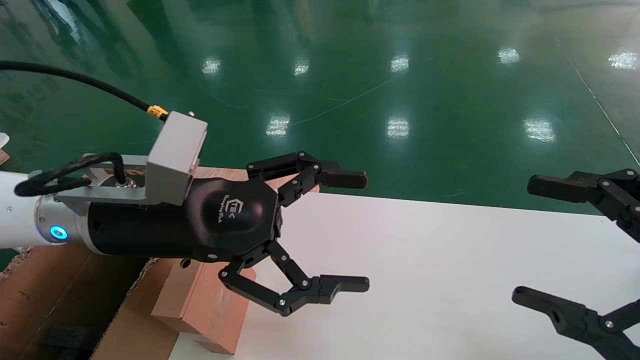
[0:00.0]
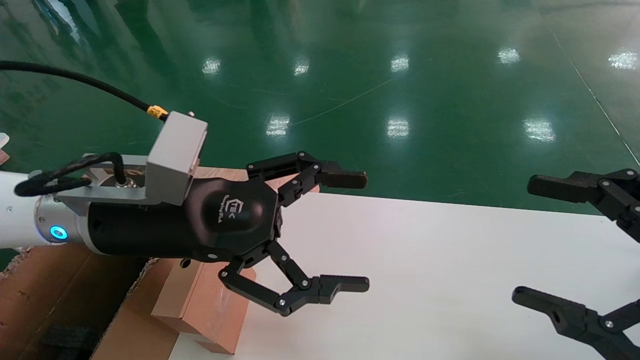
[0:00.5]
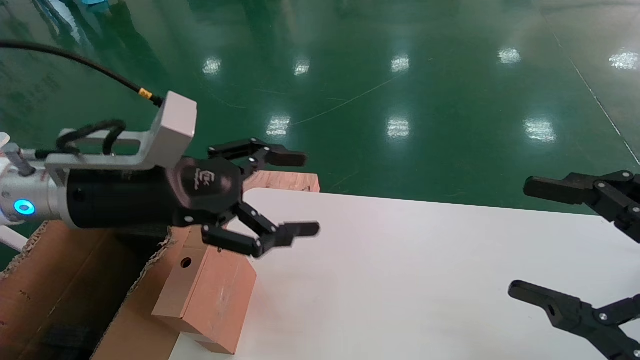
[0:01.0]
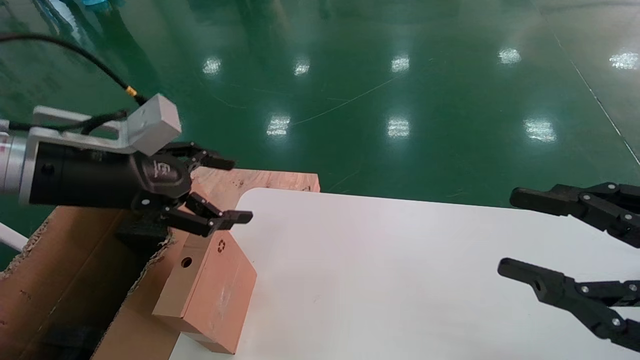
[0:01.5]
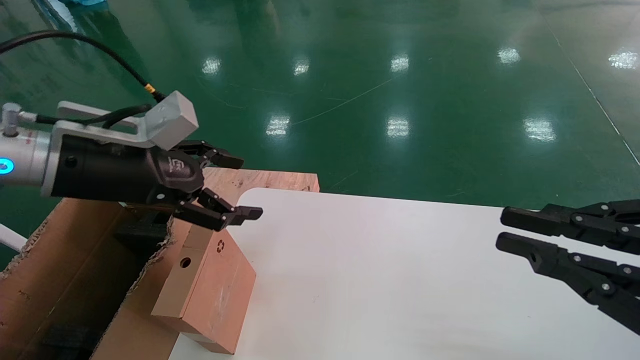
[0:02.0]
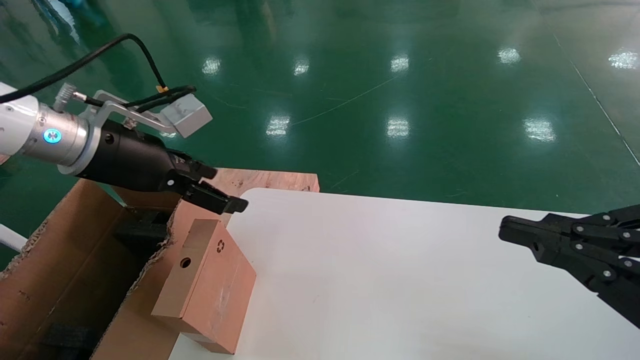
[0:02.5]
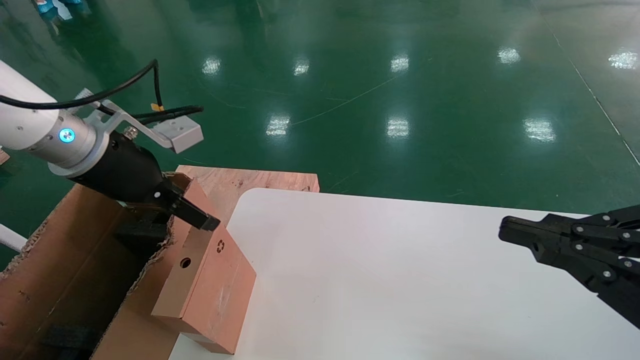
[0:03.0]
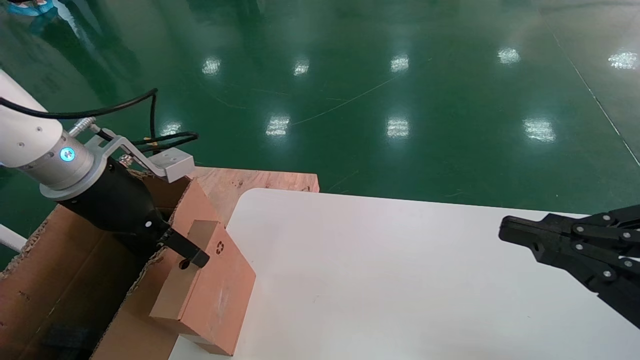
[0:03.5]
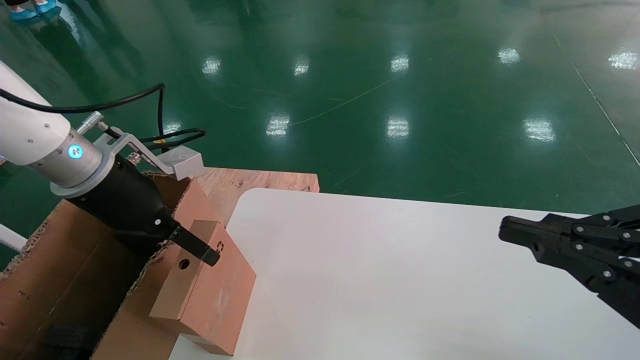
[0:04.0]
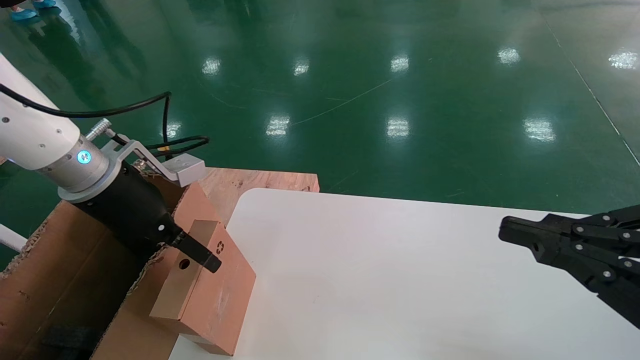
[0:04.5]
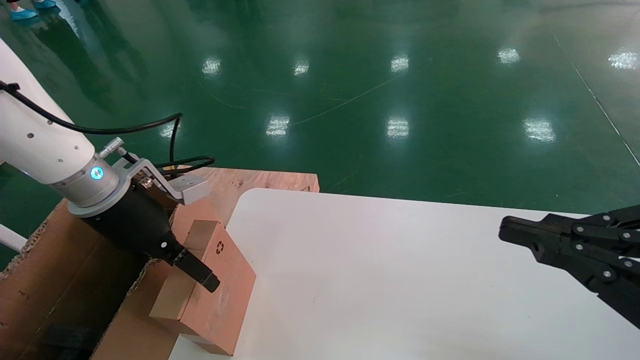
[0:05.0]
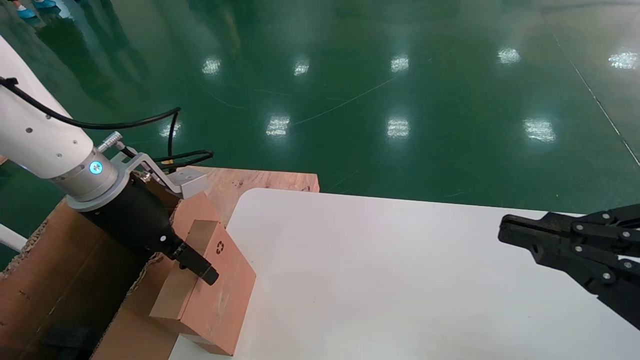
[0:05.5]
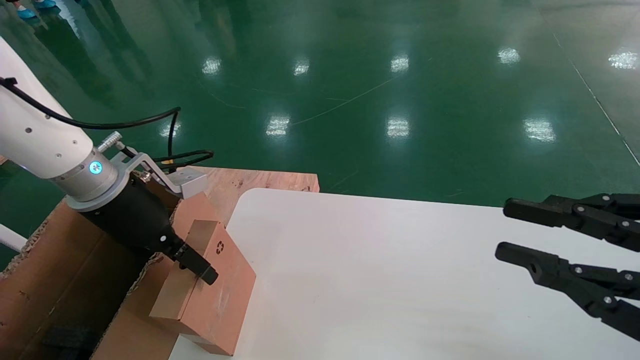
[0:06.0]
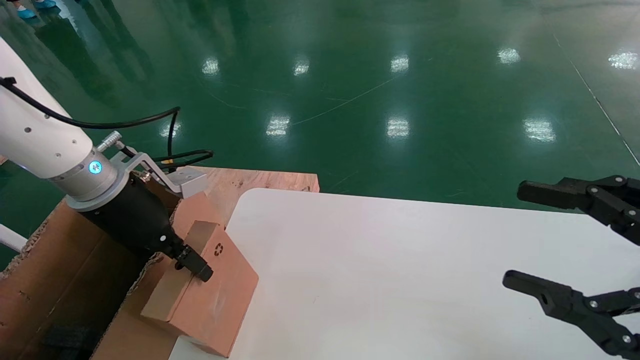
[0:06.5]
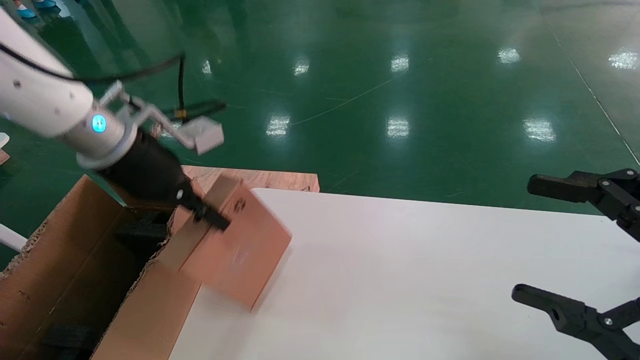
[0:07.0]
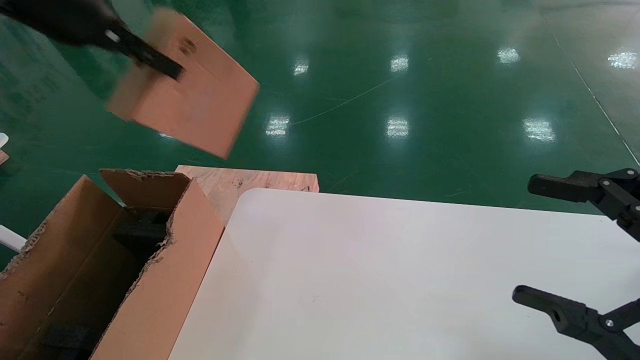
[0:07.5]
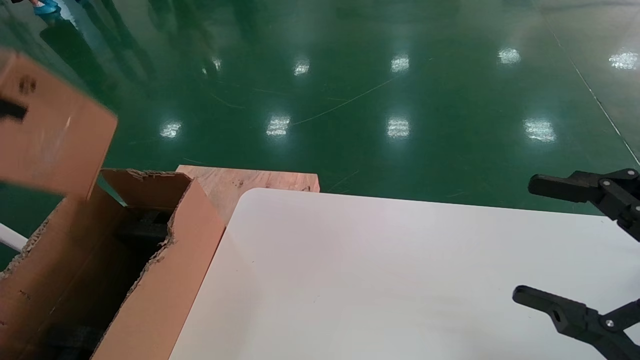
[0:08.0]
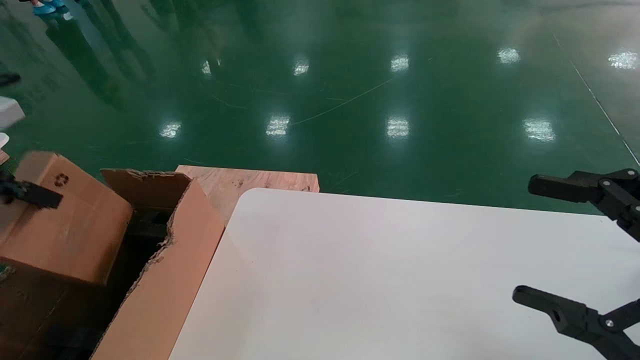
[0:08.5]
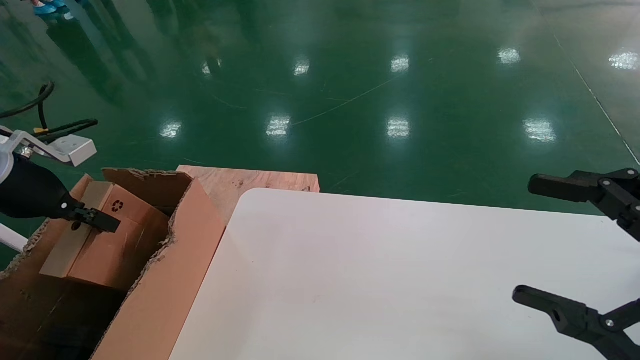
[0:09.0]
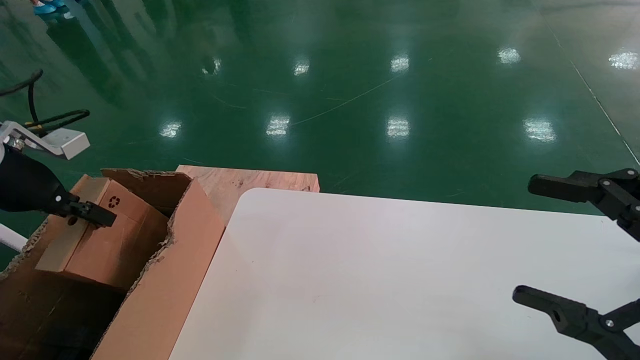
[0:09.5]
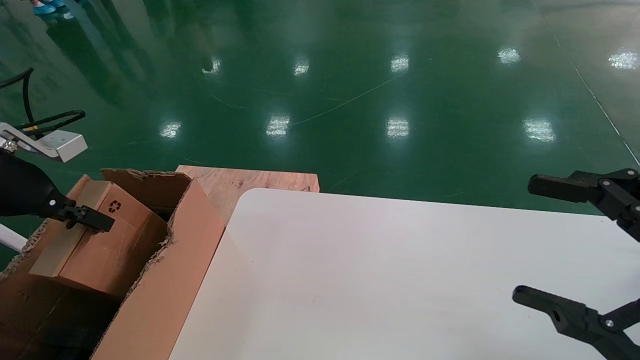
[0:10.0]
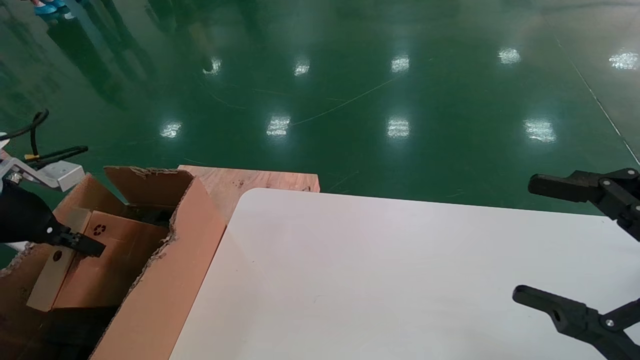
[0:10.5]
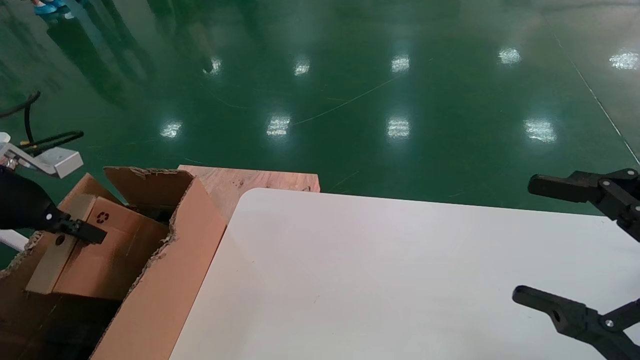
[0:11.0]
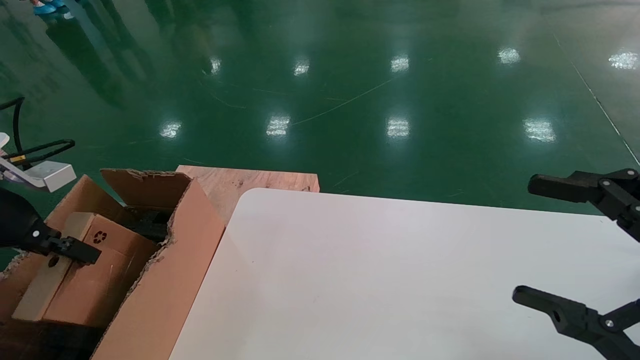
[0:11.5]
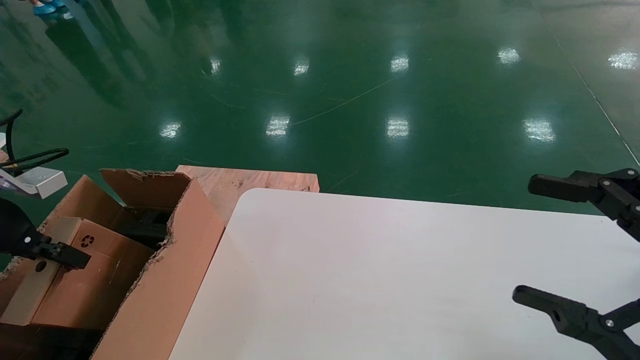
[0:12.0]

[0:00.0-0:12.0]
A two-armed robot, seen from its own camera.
Task of the whole recording: place the small box on the table into the large box on the left.
Step, 0:01.5 to 0:06.5: Pick up the mouse and the power cord paper box.
0:00.0 to 0:02.0: The left gripper moves to the left, about 10 cm. Meanwhile the right gripper closes.
0:04.0 to 0:06.0: The grippers stay close to where they were, moving slightly.
0:06.0 to 0:08.0: The right gripper opens its fingers. Meanwhile the left gripper moves upward, to the left and backward, approximately 25 cm, and closes its fingers.
0:08.0 to 0:10.0: The left gripper shifts about 15 cm downward and forward.
0:10.0 to 0:12.0: The left gripper moves some 5 cm.

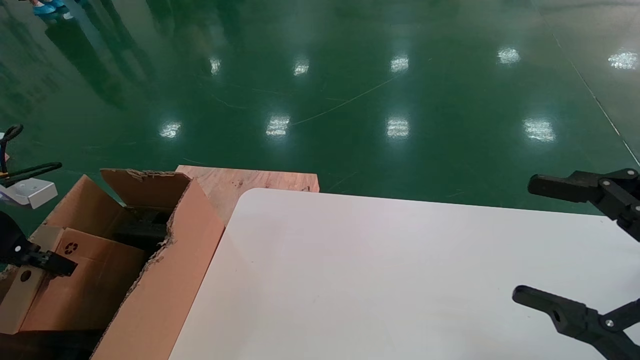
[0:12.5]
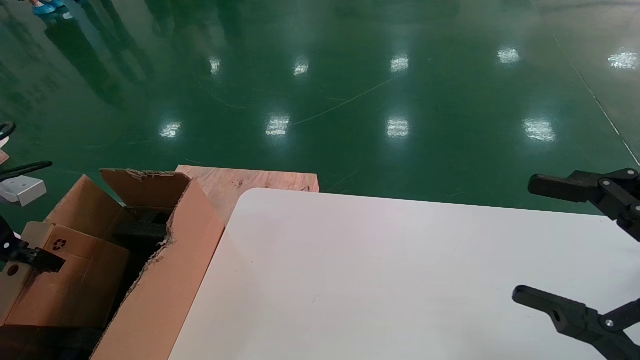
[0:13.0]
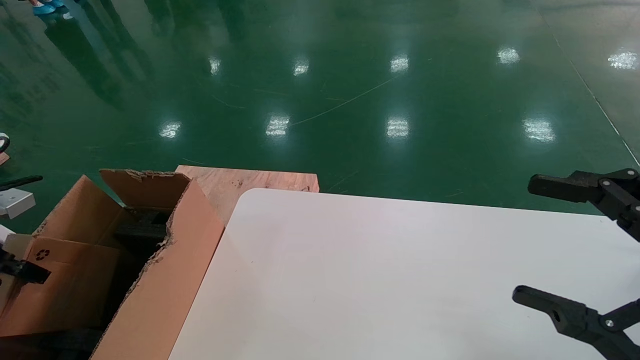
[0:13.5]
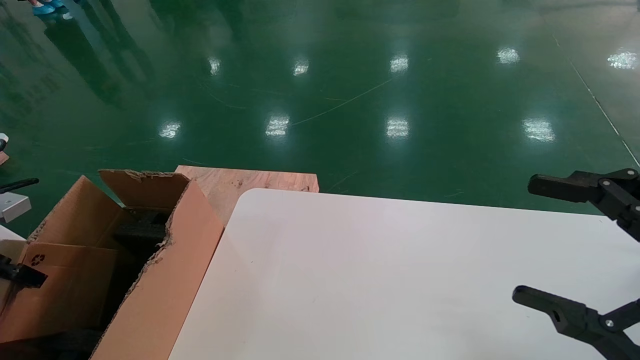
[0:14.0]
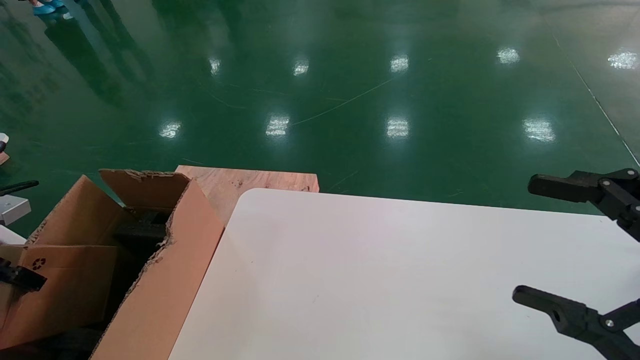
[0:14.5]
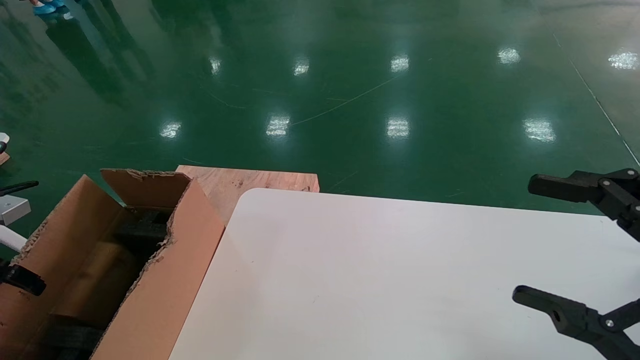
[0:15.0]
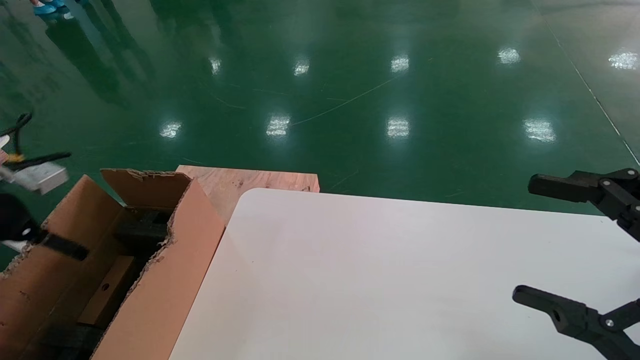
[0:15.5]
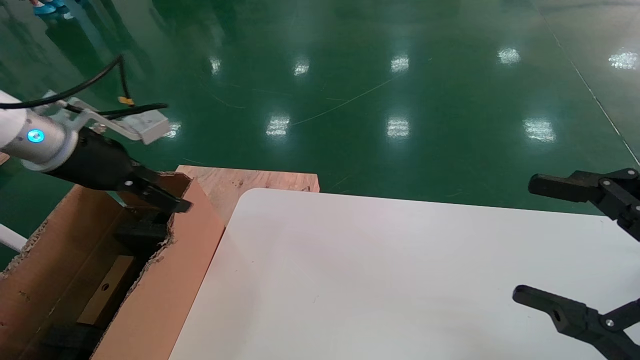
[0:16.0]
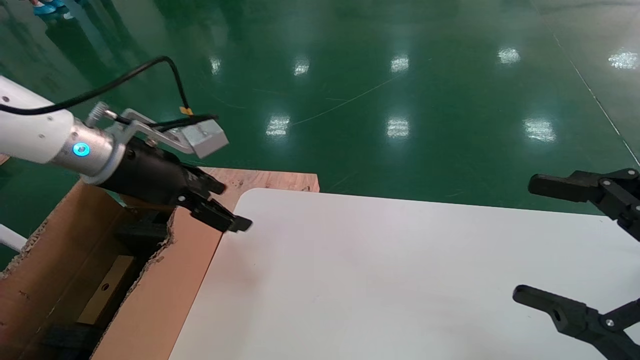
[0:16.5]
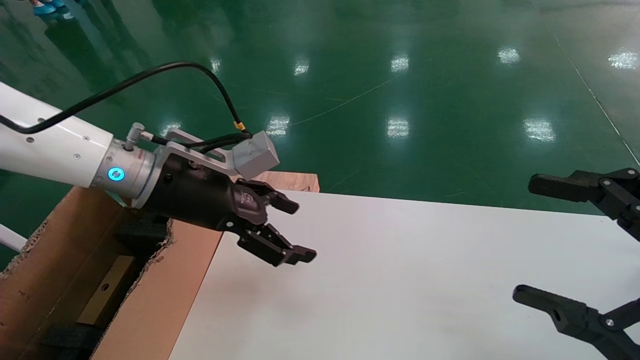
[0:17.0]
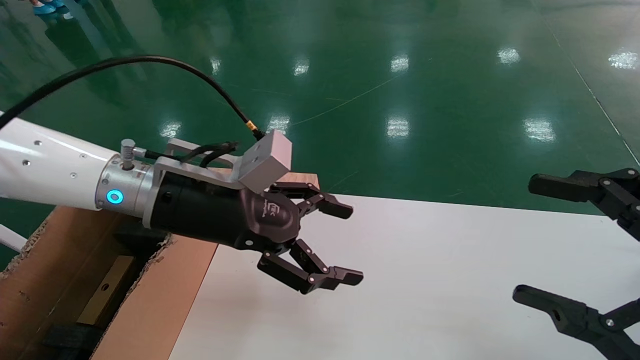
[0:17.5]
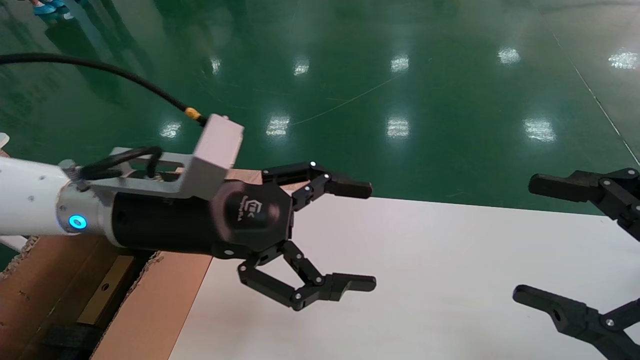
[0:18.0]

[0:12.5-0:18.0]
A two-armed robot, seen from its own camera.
Task of the whole recording: place the small box on the table into the large box on the left.
Step, 0:12.5 to 0:15.0: Place the mouse and the power cord paper box into the container.
0:12.5 to 0:14.5: The left gripper changes place by about 5 cm.
0:14.5 to 0:16.0: The left gripper heads to the right, upward and forward, covering about 20 cm, and opens.
0:16.0 to 0:18.0: The left gripper moves to the right, some 20 cm.
